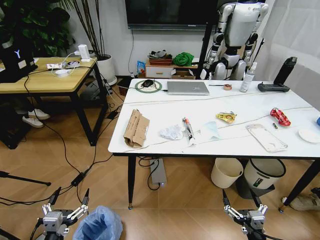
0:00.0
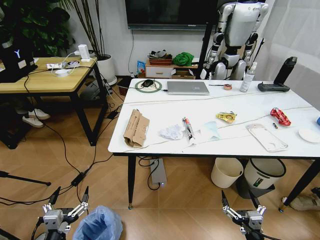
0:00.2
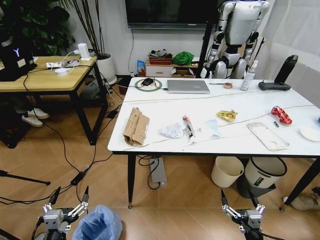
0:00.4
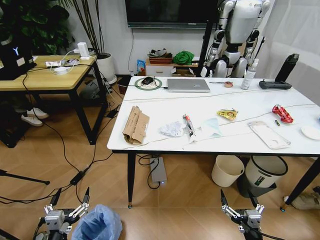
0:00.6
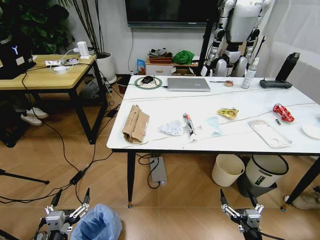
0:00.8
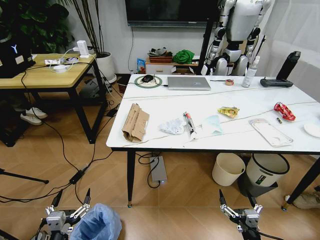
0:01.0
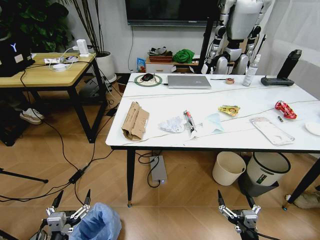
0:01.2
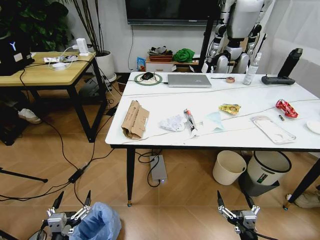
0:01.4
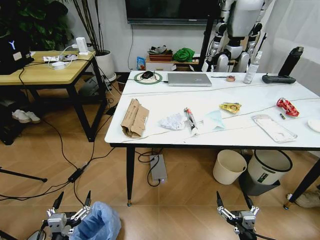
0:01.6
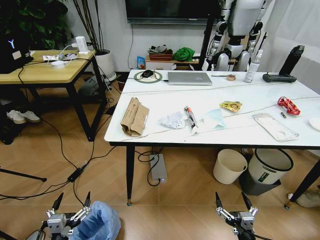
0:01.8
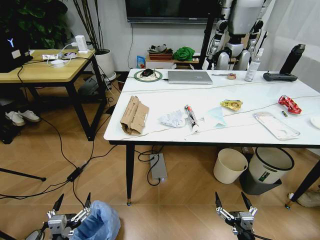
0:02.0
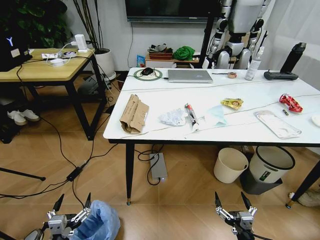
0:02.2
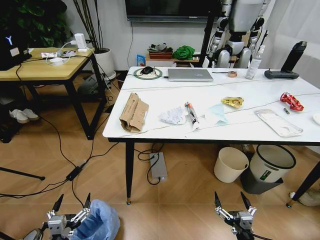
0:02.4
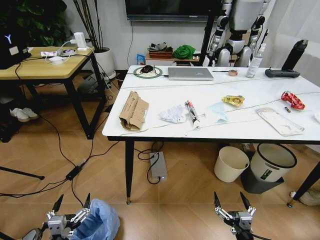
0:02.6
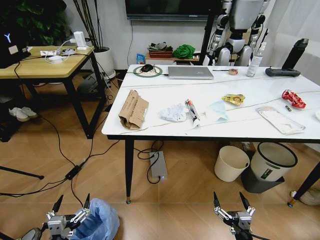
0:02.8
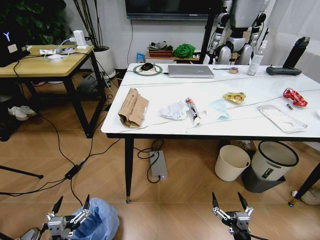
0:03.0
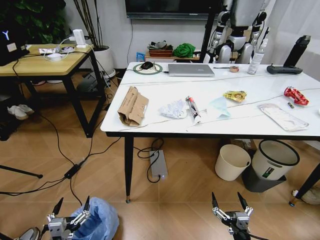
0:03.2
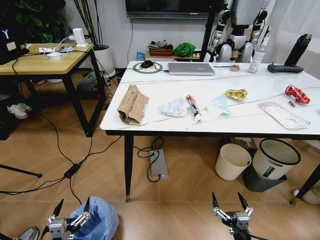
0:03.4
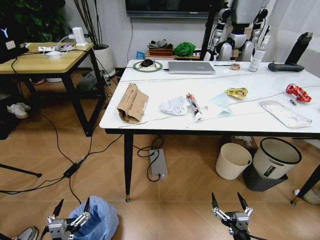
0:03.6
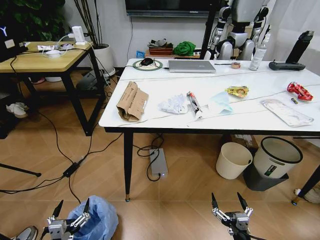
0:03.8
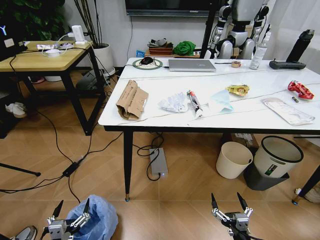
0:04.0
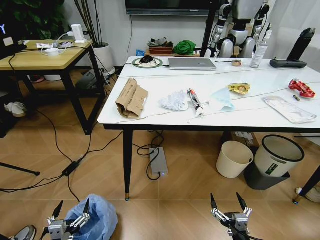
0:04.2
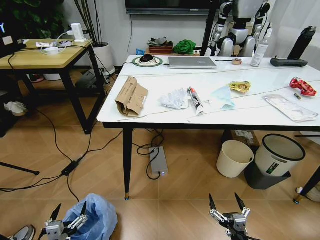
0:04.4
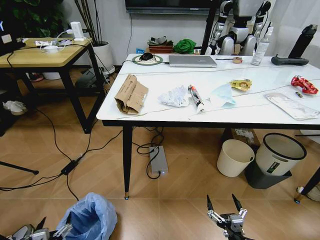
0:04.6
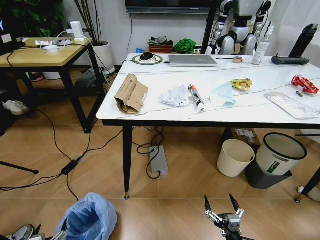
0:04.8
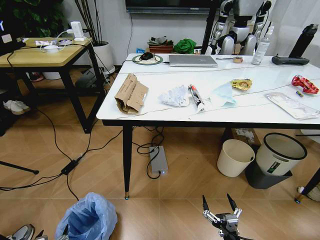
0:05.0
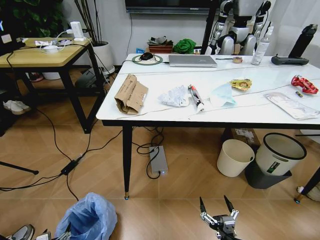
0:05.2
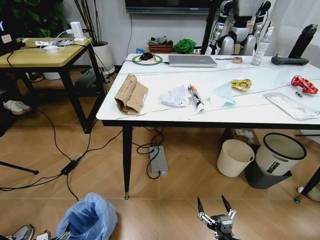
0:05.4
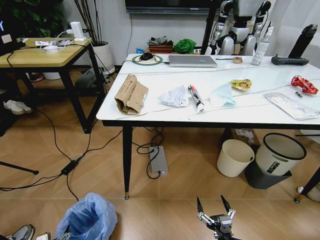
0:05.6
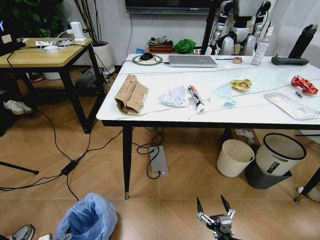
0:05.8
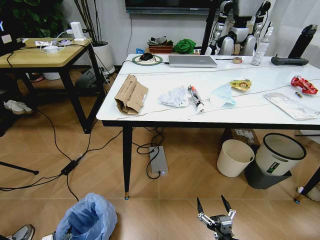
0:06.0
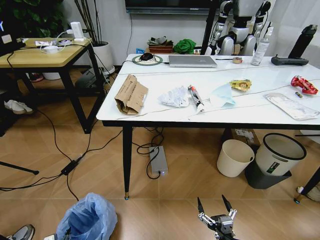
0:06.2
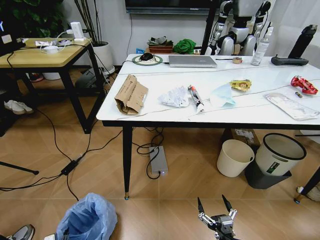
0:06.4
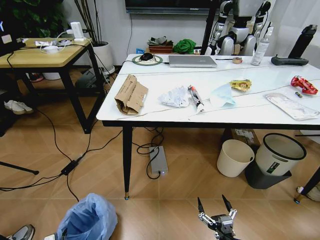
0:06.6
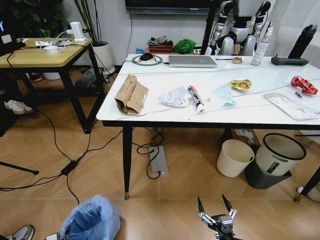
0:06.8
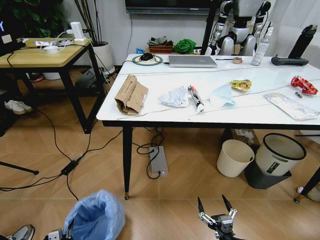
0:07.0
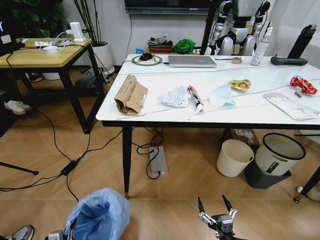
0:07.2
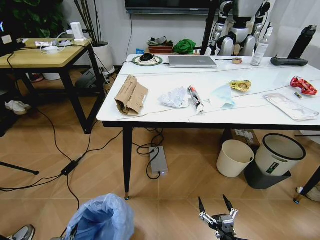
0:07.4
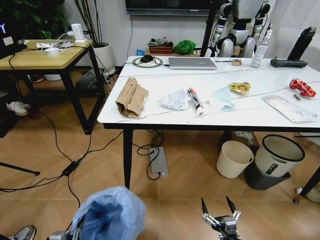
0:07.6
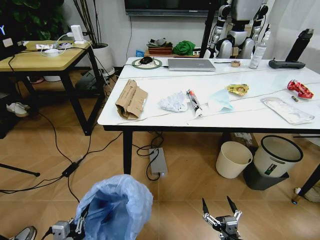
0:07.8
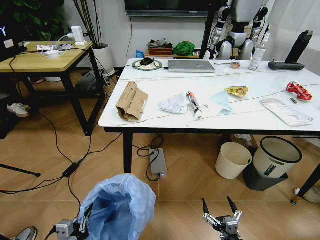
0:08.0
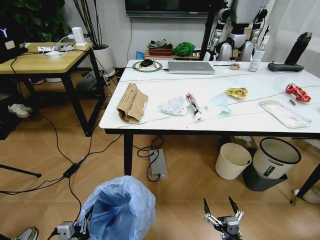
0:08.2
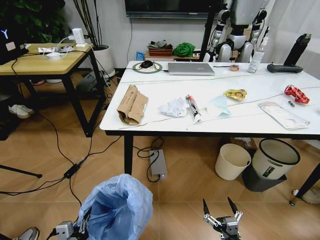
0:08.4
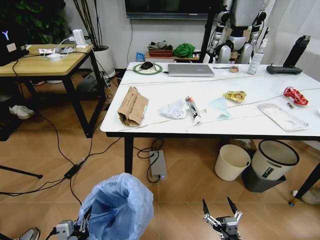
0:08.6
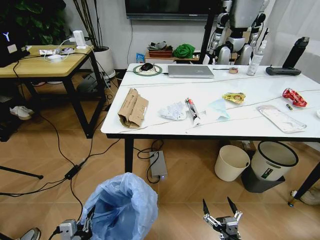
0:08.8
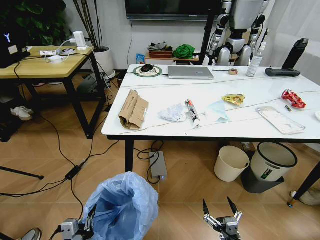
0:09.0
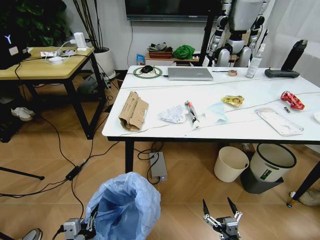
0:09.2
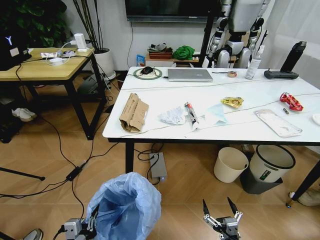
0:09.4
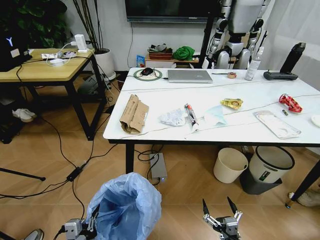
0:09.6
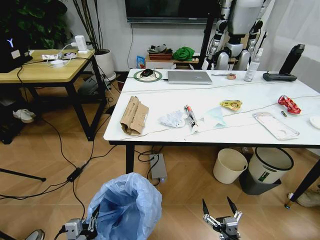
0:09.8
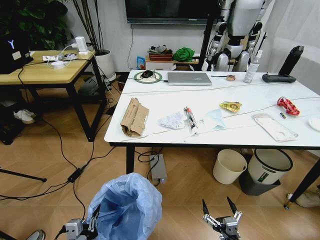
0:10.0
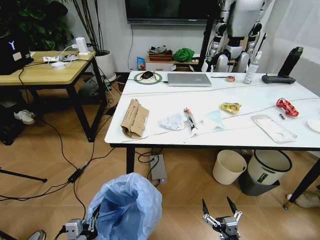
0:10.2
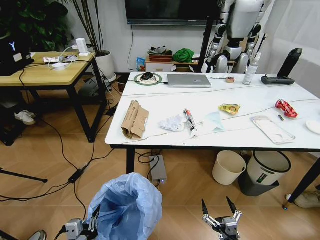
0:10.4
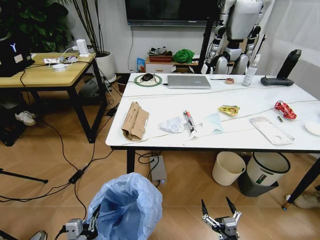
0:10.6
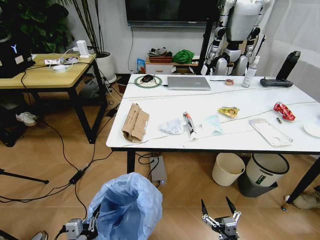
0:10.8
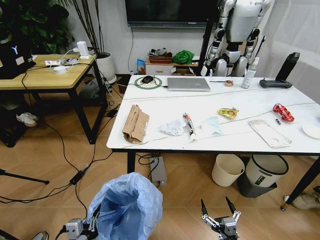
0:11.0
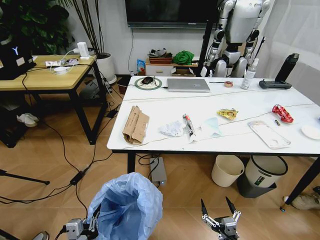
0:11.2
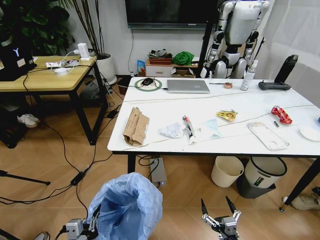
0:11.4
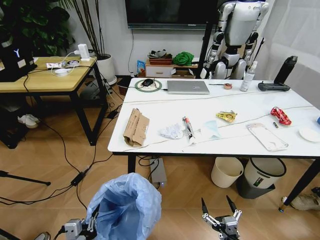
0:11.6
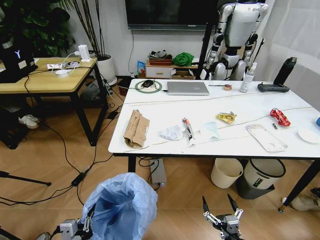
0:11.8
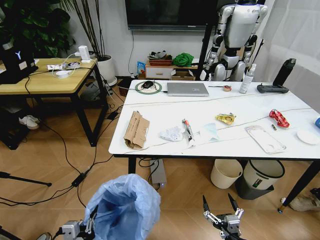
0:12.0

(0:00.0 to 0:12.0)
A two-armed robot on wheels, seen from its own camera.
Task of the whole recording: Pick up the trash bin and place the trash from the table into it.
0:04.4 - 0:06.0: The left gripper shifts about 15 cm downward and to the left.
0:06.0 - 0:07.6: The left gripper is displaced upward and to the right by roughly 15 cm, and closes up.
0:07.6 - 0:09.0: The left gripper travels upward and to the right by roughly 10 cm.

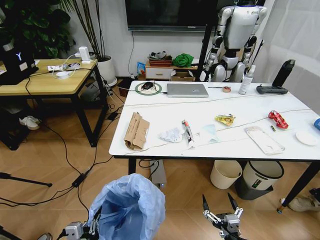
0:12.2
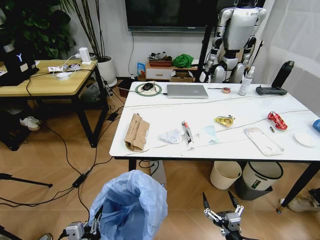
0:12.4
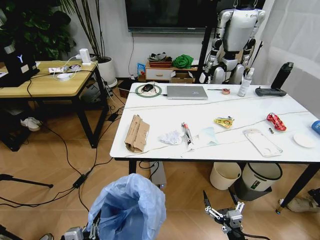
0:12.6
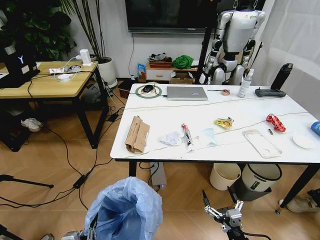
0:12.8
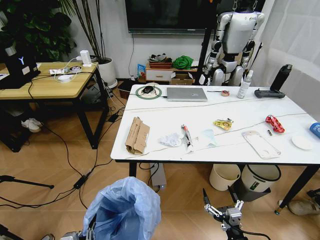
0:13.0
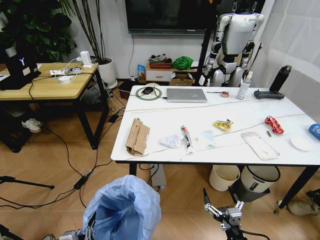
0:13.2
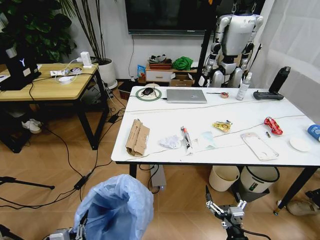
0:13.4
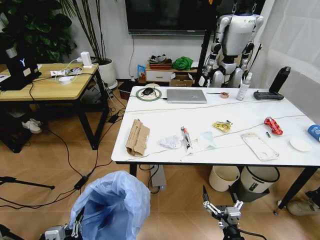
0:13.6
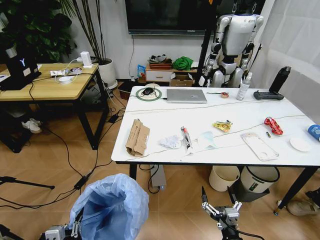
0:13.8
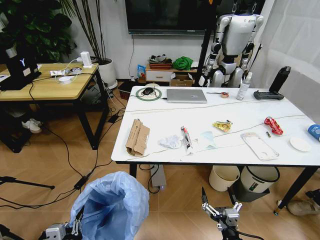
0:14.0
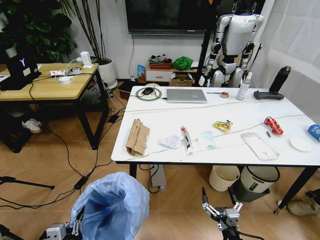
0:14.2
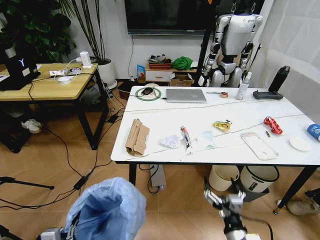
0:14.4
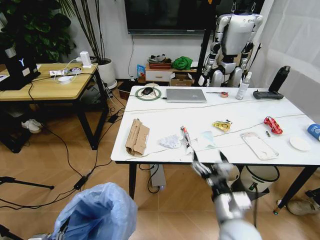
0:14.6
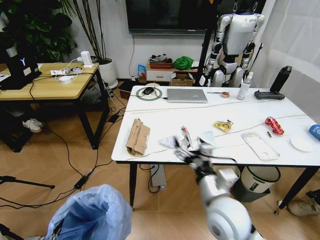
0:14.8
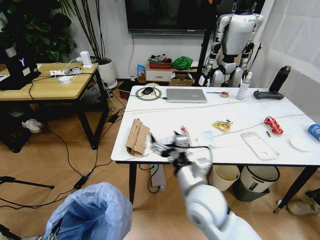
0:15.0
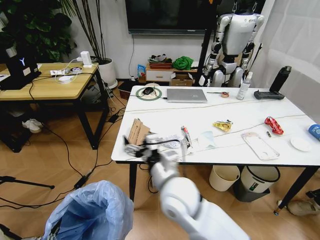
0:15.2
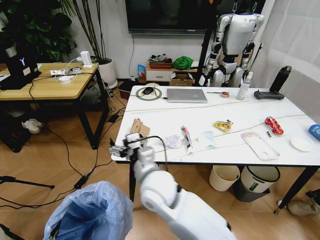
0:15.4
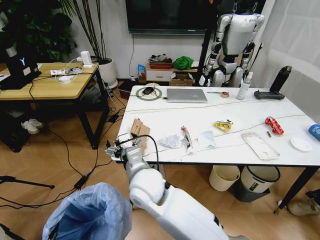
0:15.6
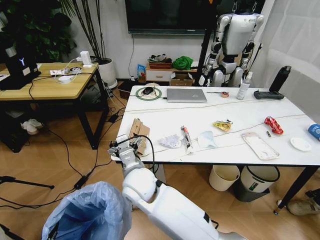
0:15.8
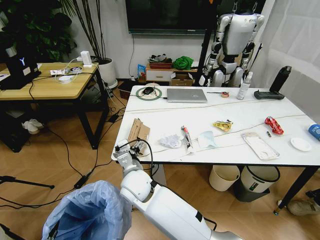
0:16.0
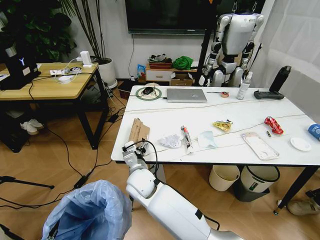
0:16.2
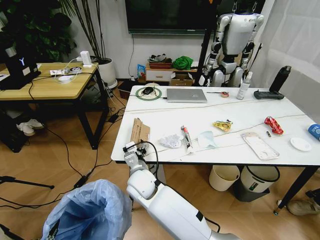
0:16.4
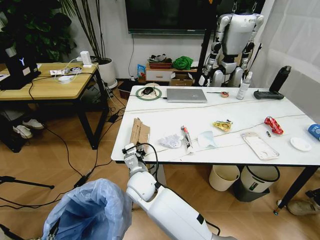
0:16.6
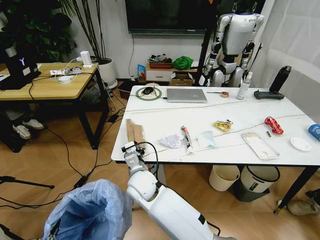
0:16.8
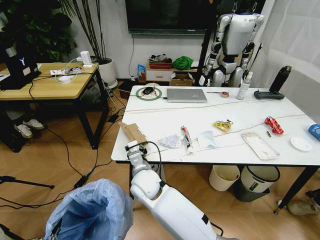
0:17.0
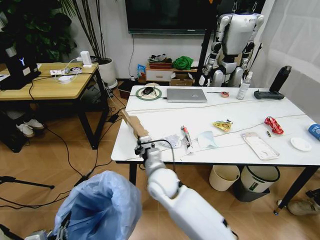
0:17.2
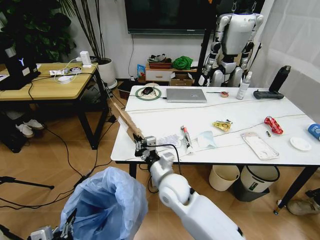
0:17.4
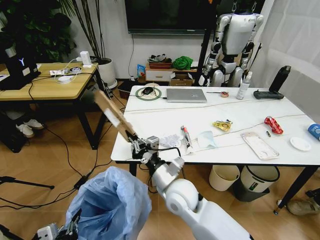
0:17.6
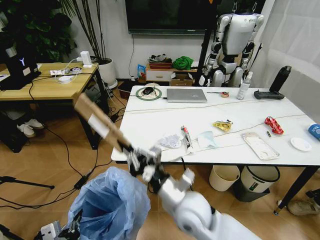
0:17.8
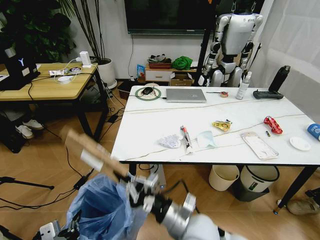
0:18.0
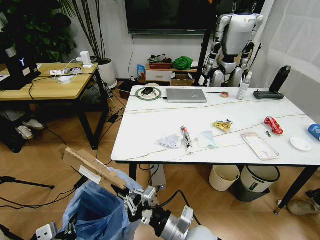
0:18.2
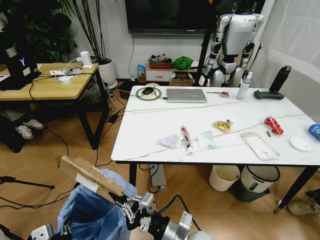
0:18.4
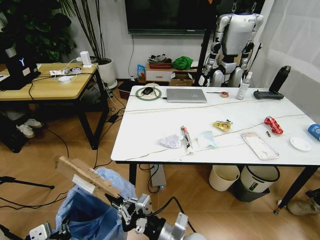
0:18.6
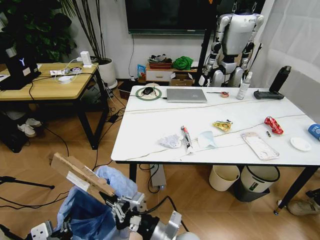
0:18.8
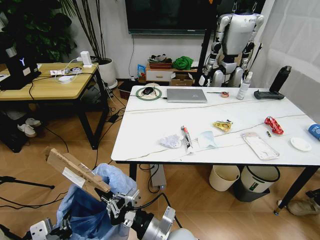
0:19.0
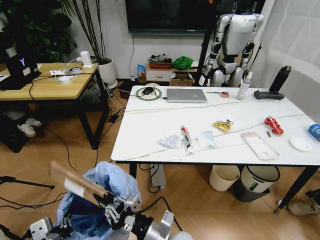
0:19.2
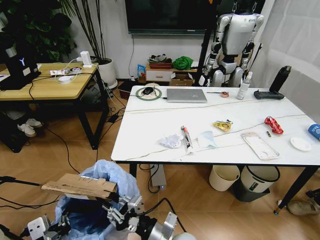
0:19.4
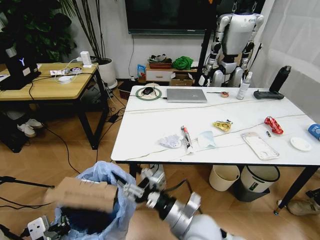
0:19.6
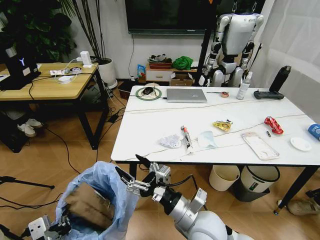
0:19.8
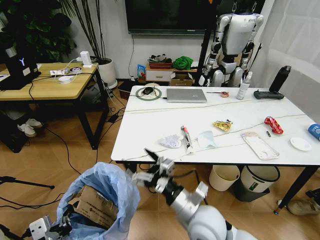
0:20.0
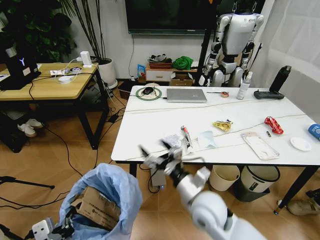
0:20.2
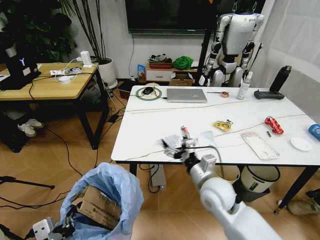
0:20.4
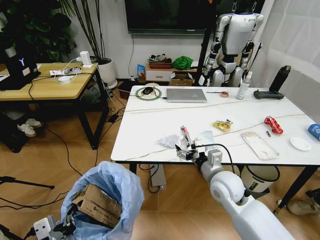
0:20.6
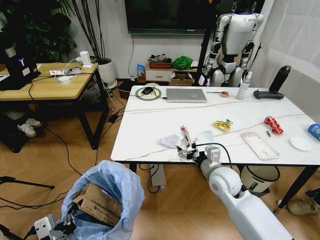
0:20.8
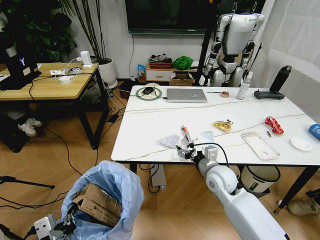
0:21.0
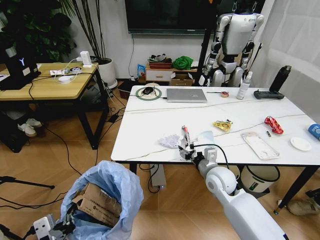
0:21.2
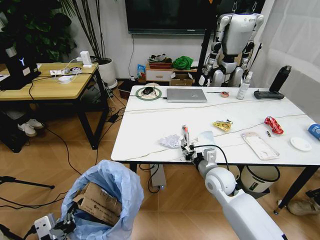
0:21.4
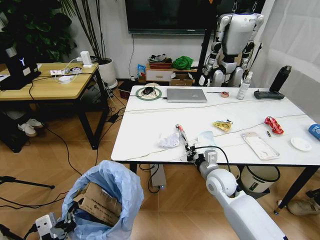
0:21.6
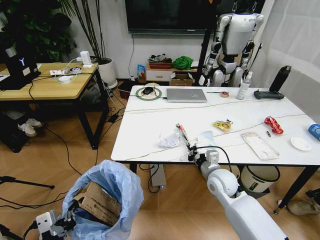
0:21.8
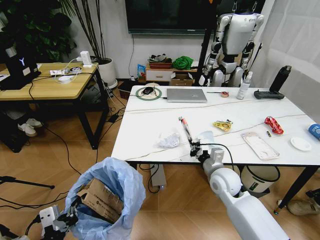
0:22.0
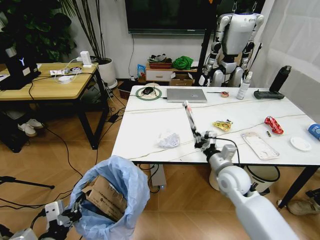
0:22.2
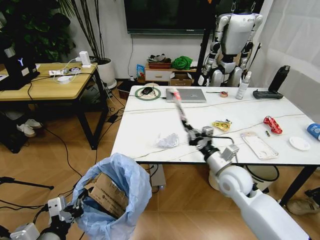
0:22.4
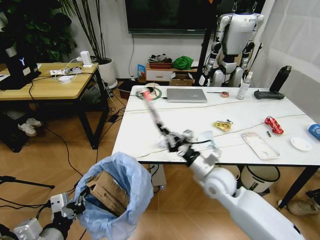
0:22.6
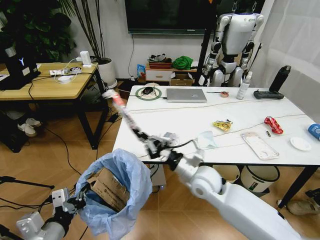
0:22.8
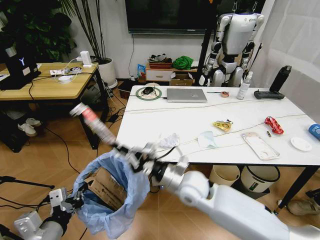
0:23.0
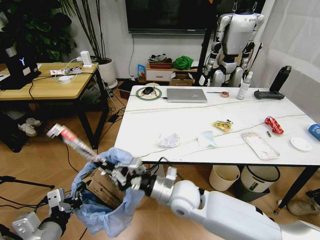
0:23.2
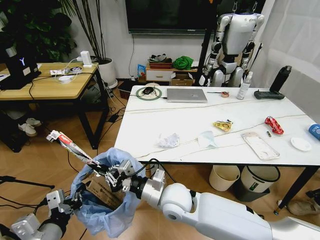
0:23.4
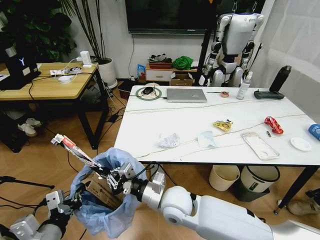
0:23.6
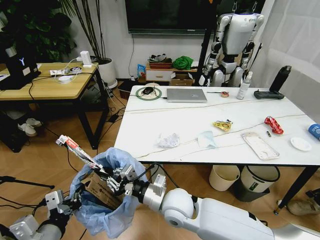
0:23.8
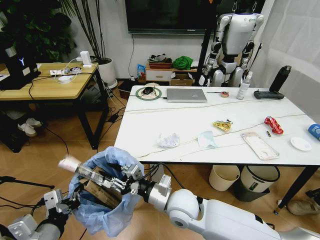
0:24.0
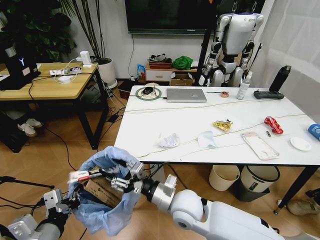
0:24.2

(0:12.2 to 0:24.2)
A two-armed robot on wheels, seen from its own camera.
Task of the whole recording: Pick up the trash bin and place the trash from the table into it.
0:13.8 - 0:15.2: The right gripper goes roughly 35 cm upward, to the left and forward, while the left gripper ends up about 5 cm from where it was.
0:15.2 - 0:16.6: The right gripper shifts approximately 15 cm to the left, downward and forward, and closes up.
0:16.6 - 0:18.2: The left gripper changes place by about 5 cm. The right gripper goes approximately 25 cm backward and to the right, and closes.
0:18.2 - 0:19.8: The right gripper opens up.
0:19.8 - 0:21.2: The right gripper heads forward and to the right, covering roughly 20 cm.
0:21.2 - 0:22.6: The left gripper goes about 5 cm forward, while the right gripper closes.
0:22.6 - 0:24.2: The right gripper moves to the left and backward, roughly 15 cm, and opens its fingers.
